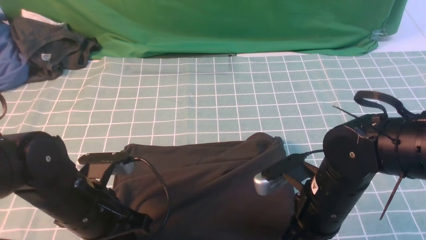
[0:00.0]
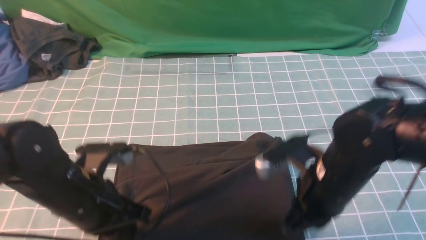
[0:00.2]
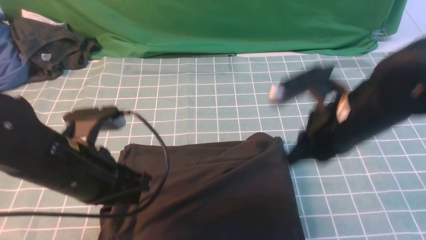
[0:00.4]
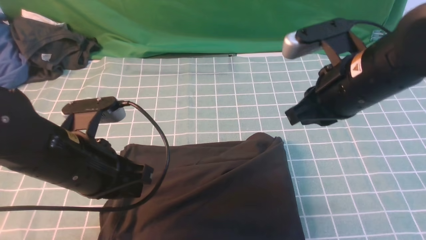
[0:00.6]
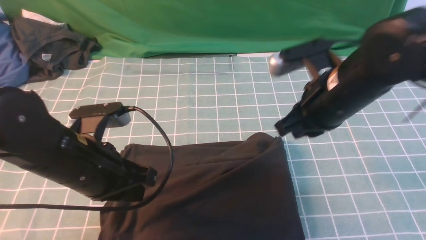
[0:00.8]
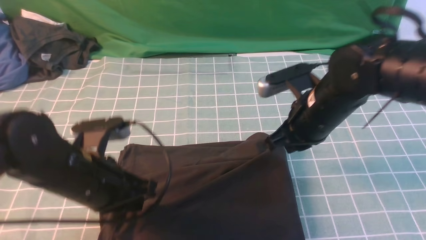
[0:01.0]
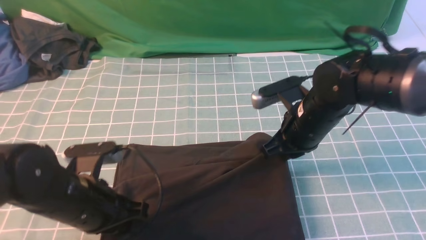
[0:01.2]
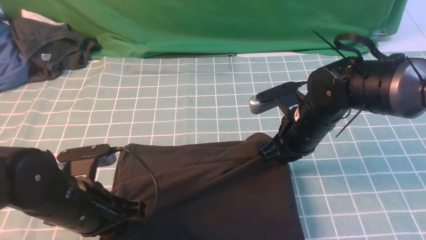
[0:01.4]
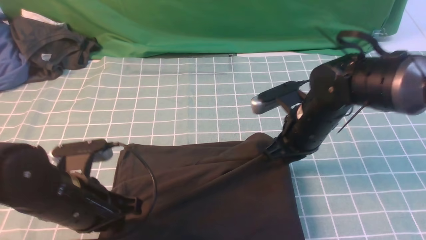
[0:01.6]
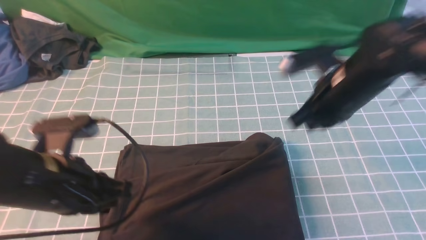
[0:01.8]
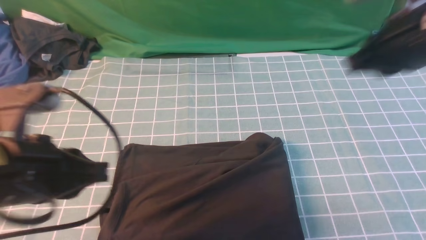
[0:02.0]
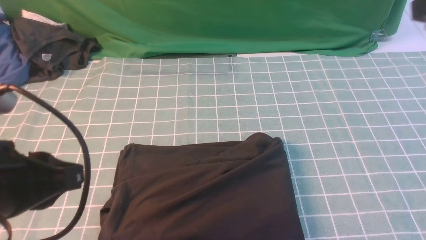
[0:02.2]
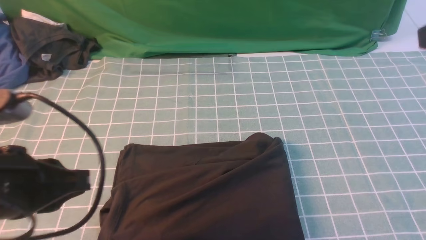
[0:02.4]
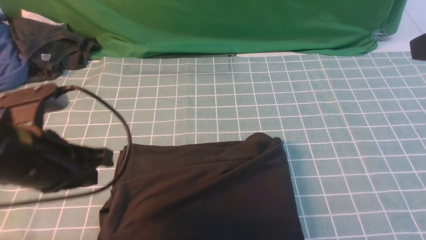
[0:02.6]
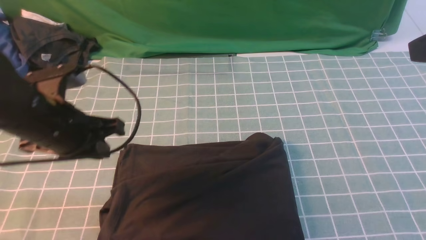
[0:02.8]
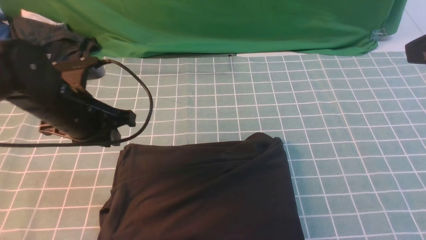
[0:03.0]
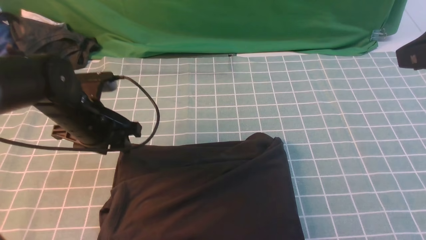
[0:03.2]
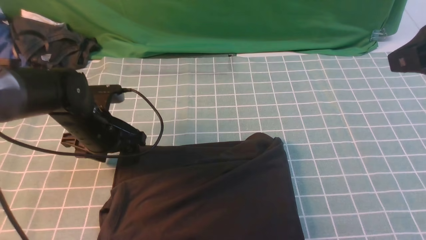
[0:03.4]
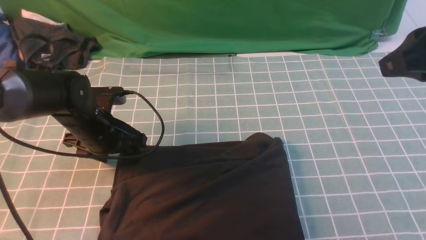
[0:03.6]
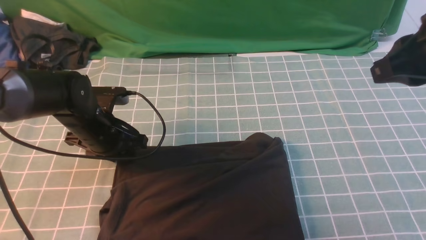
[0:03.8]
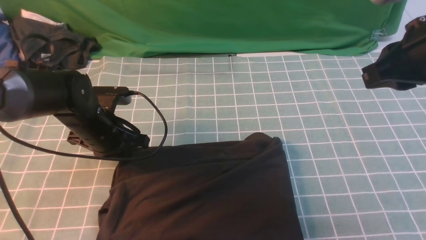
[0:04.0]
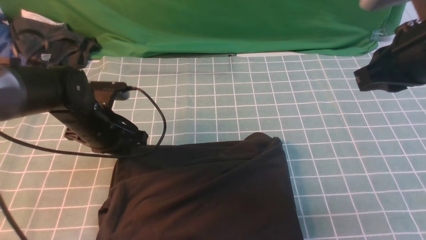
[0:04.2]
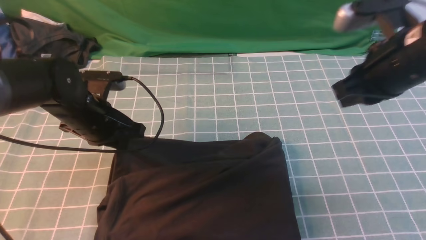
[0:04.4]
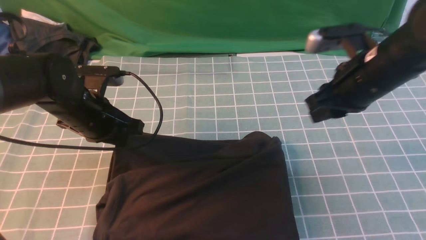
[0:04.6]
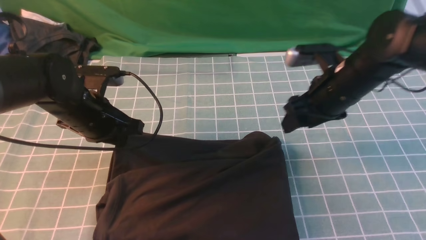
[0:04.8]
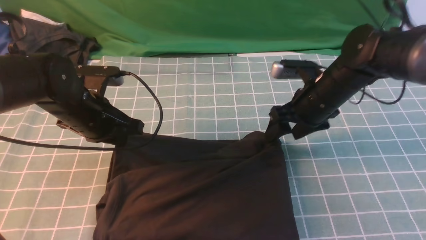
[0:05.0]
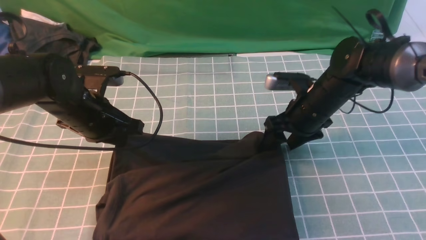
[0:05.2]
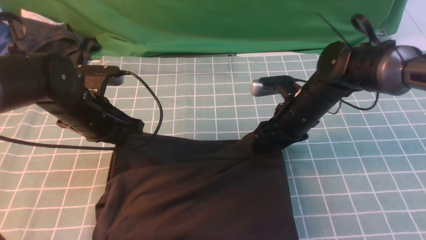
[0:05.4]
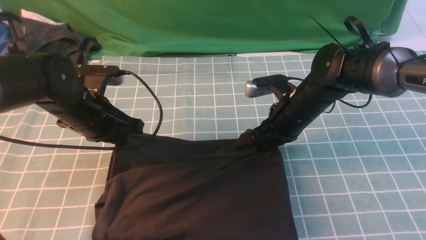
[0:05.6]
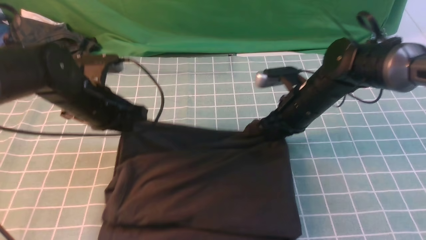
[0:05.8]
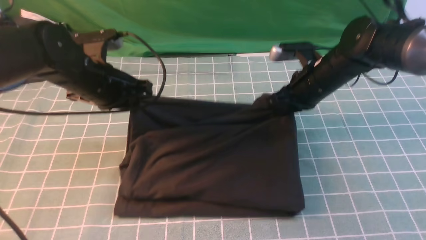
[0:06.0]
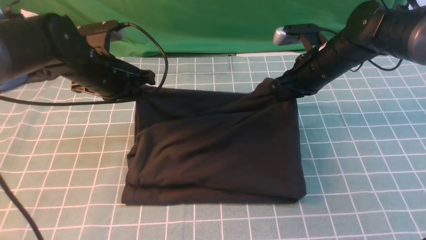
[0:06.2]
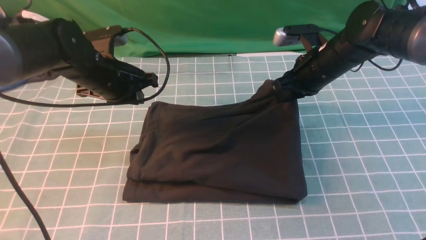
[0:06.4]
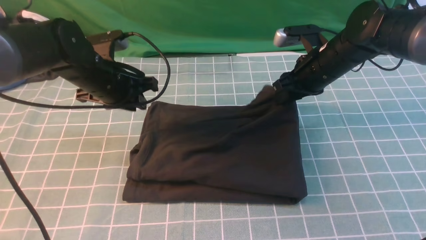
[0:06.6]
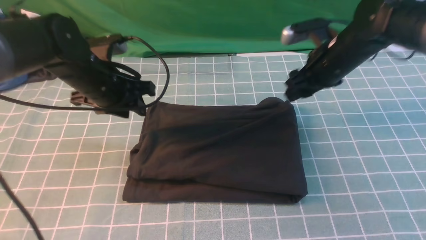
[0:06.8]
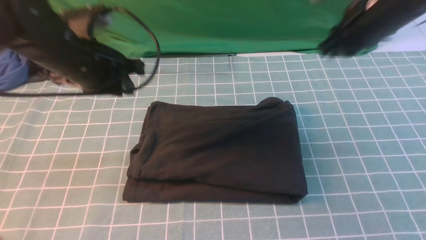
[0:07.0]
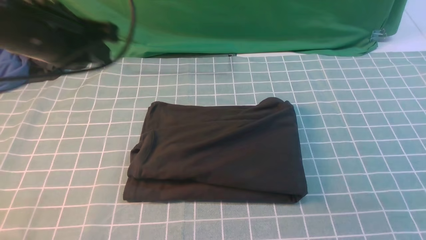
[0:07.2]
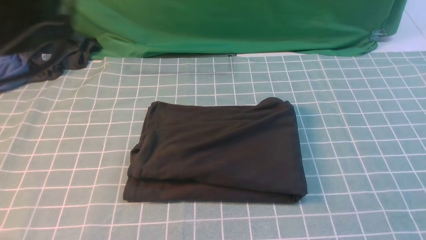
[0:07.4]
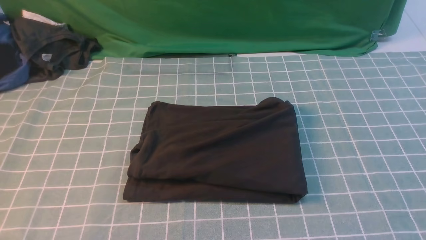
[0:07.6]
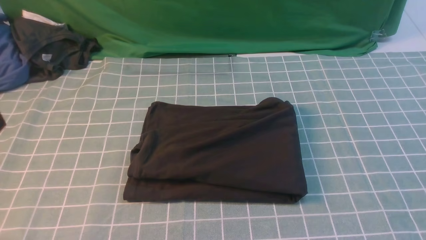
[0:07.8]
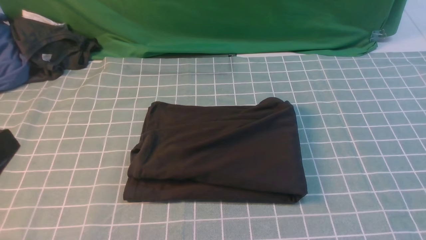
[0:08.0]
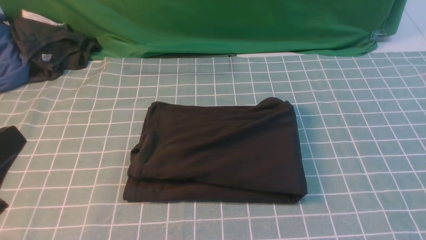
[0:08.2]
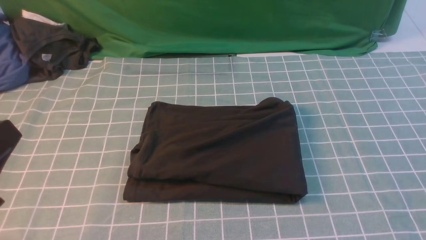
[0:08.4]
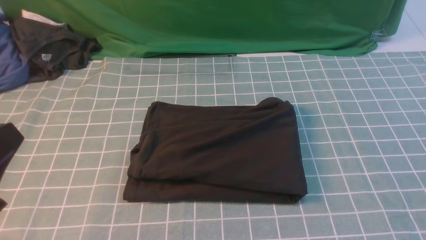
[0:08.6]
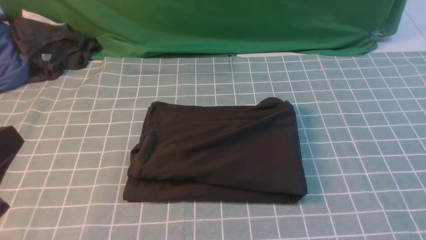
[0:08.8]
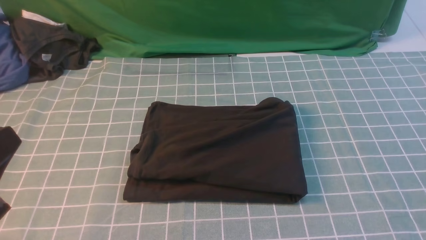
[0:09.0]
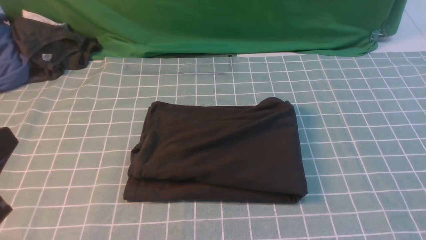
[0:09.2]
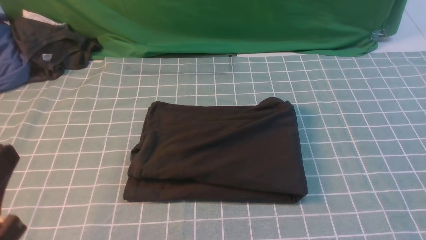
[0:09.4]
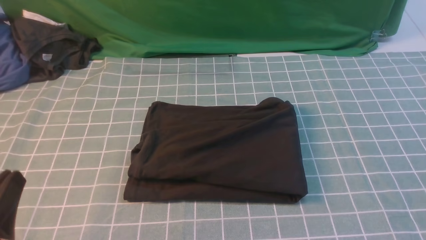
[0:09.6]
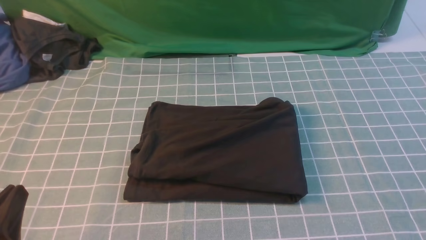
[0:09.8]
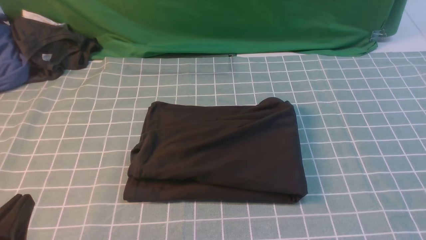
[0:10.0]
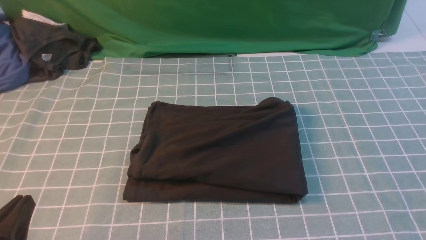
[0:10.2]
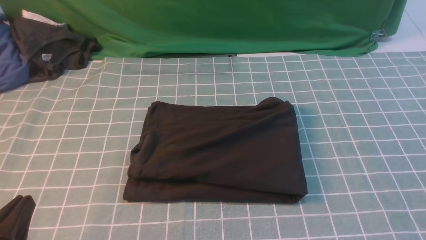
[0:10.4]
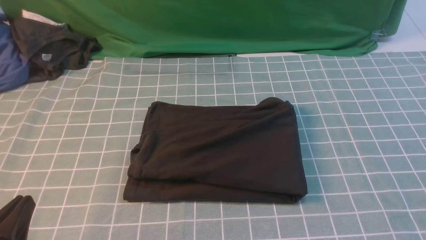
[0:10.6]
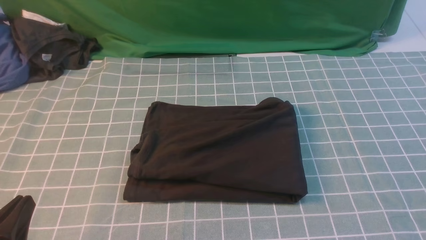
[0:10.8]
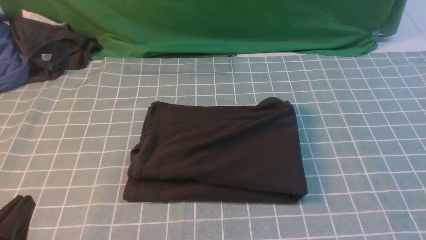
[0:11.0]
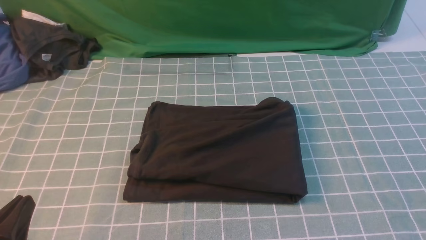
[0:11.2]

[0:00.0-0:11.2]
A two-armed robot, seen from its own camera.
0:00.0 to 0:01.6: The right gripper travels forward by approximately 10 cm.
0:01.6 to 0:03.2: The right gripper shifts roughly 25 cm upward, backward and to the right; the left gripper goes approximately 15 cm forward, and opens.
0:03.2 to 0:04.8: The left gripper closes, while the right gripper shifts about 25 cm downward and forward, and opens its fingers.
0:04.8 to 0:06.4: Both grippers travel together forward, approximately 5 cm. The right gripper closes its fingers.
0:06.4 to 0:08.0: The left gripper moves backward, about 30 cm. The right gripper is displaced backward and upward by roughly 40 cm.
0:08.0 to 0:09.6: The left gripper travels downward by about 10 cm.
0:09.6 to 0:11.2: The grippers make only small movements.

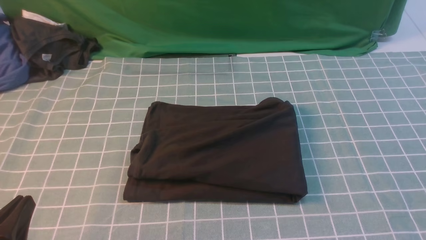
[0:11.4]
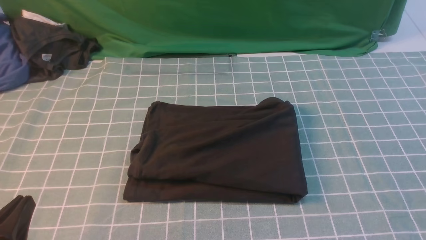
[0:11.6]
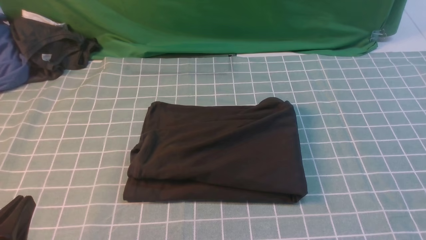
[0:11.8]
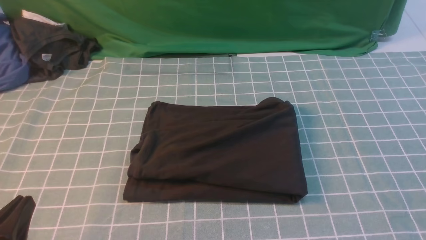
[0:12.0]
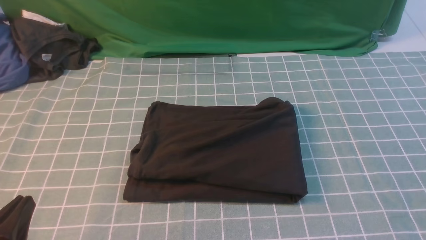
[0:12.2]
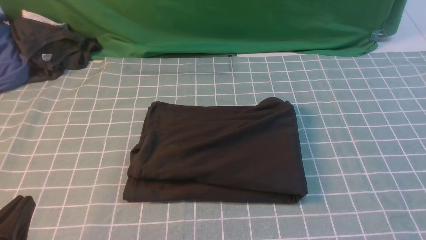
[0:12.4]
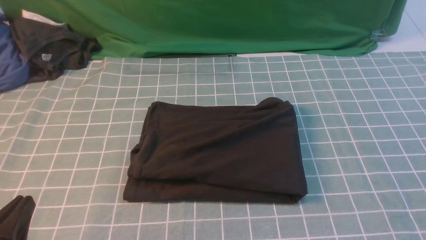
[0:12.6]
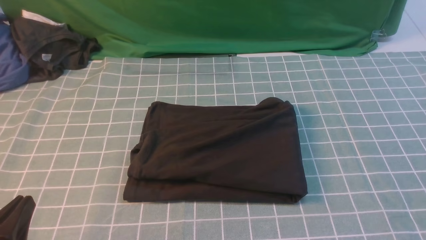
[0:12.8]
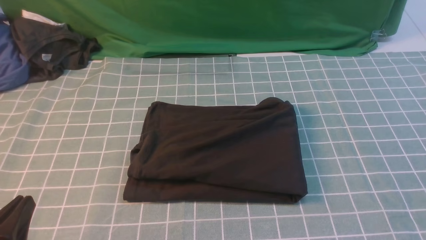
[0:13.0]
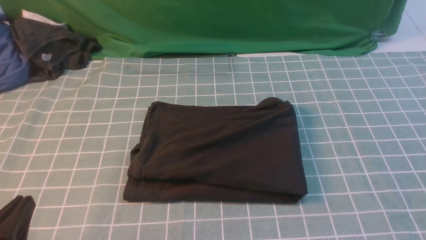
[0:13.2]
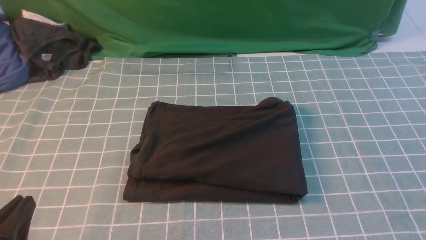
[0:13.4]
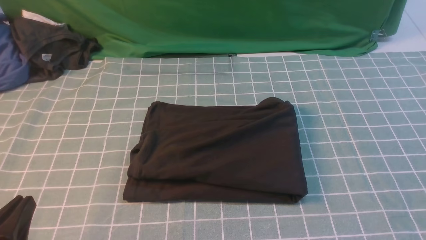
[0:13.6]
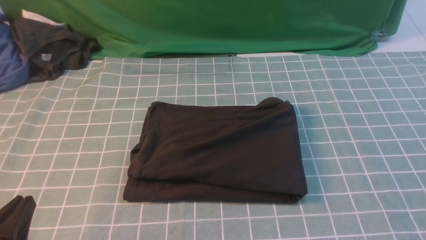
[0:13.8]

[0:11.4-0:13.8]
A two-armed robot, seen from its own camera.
0:12.6 to 0:13.8: Both grippers stay put.
